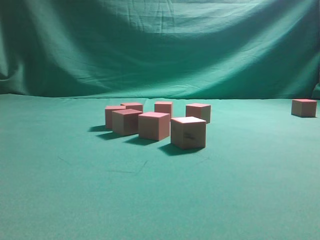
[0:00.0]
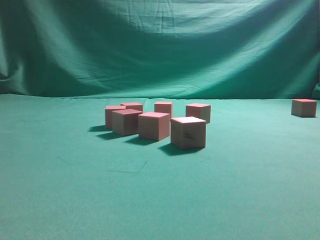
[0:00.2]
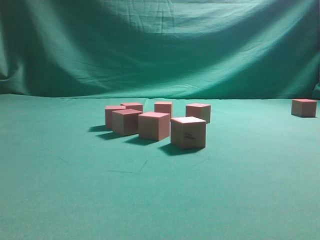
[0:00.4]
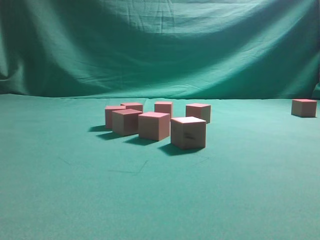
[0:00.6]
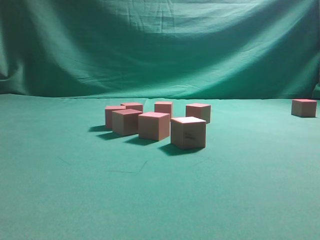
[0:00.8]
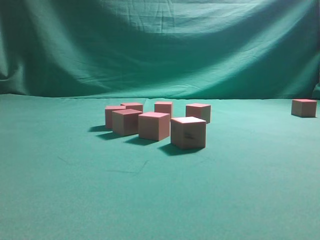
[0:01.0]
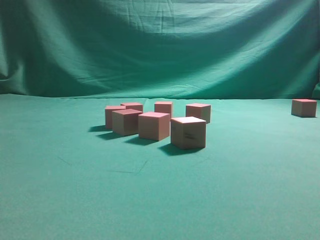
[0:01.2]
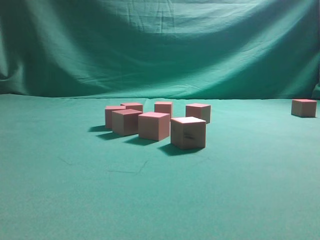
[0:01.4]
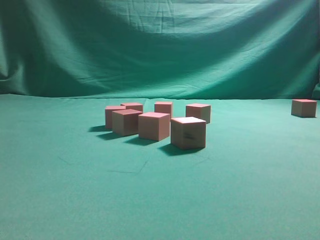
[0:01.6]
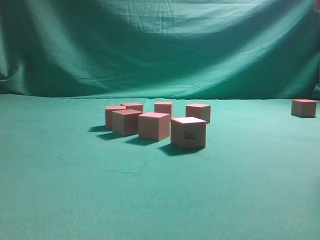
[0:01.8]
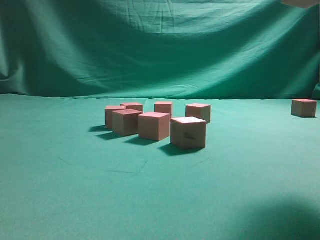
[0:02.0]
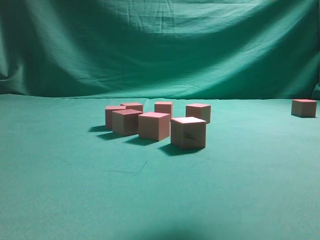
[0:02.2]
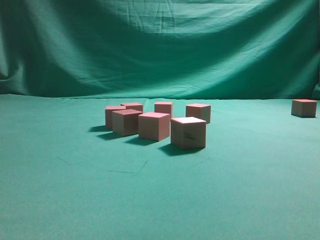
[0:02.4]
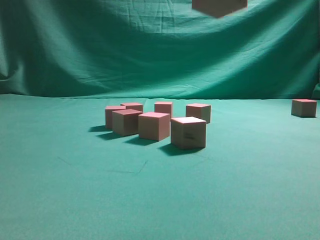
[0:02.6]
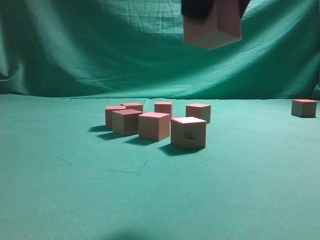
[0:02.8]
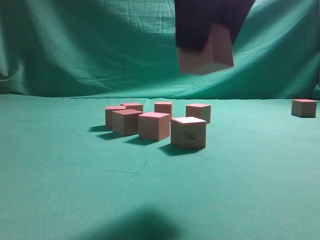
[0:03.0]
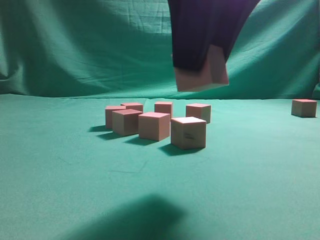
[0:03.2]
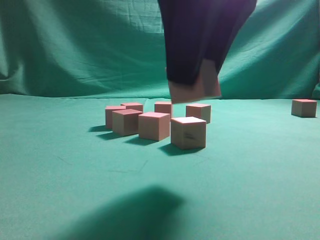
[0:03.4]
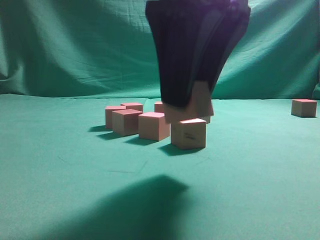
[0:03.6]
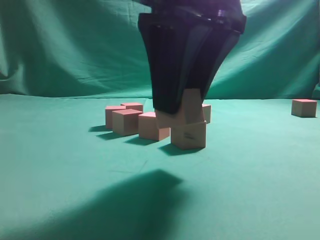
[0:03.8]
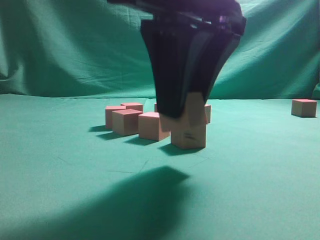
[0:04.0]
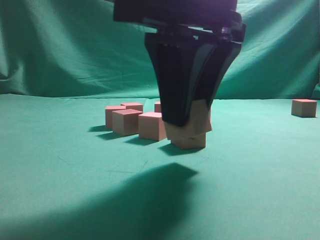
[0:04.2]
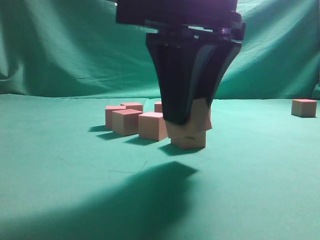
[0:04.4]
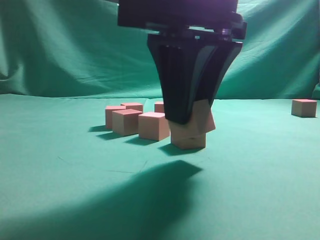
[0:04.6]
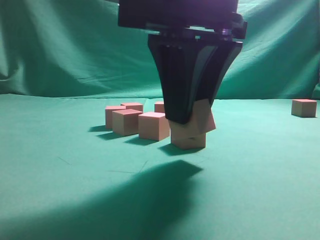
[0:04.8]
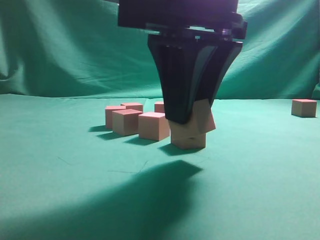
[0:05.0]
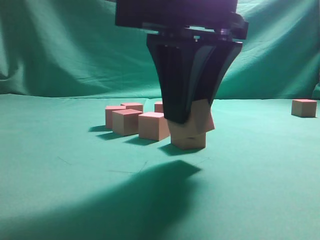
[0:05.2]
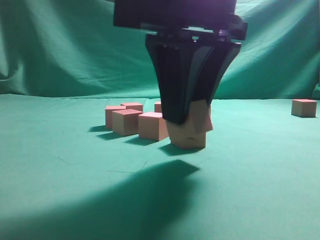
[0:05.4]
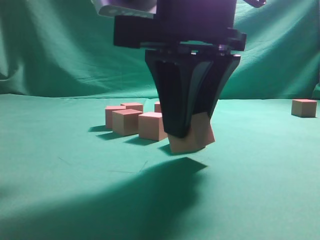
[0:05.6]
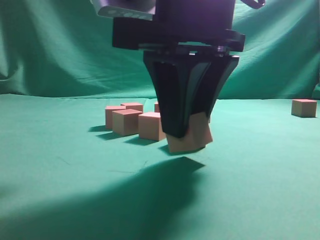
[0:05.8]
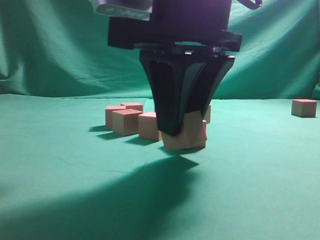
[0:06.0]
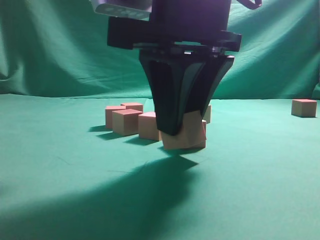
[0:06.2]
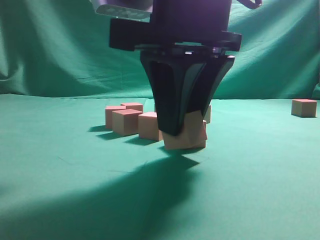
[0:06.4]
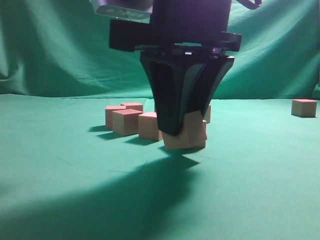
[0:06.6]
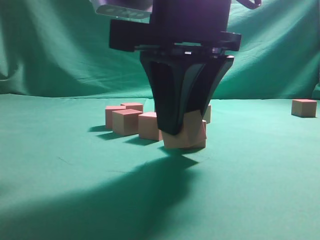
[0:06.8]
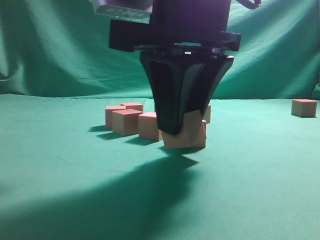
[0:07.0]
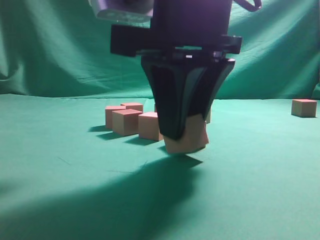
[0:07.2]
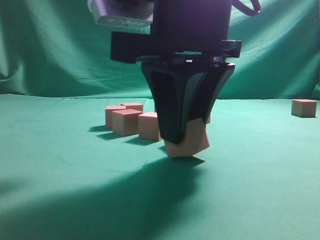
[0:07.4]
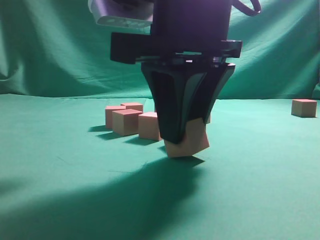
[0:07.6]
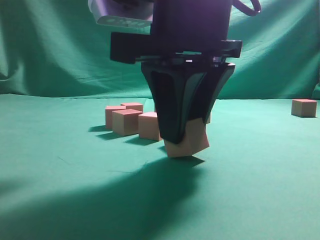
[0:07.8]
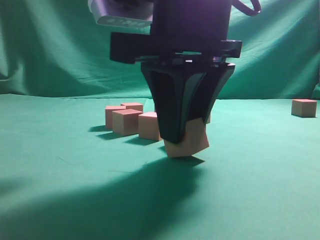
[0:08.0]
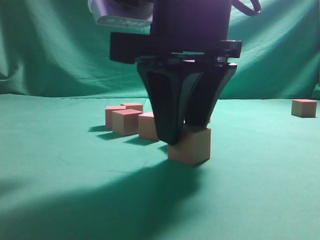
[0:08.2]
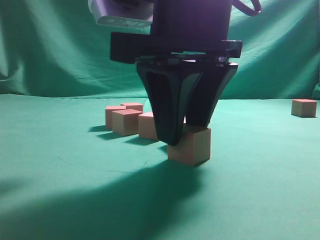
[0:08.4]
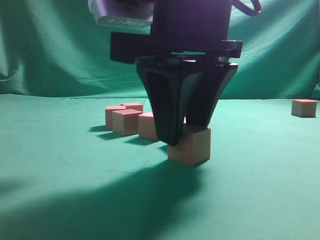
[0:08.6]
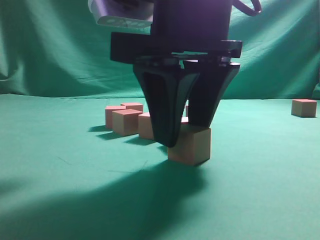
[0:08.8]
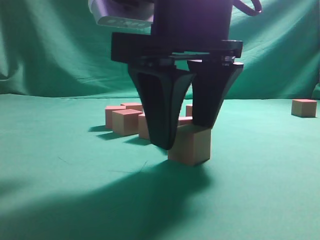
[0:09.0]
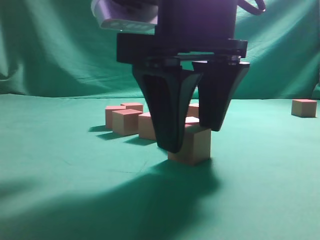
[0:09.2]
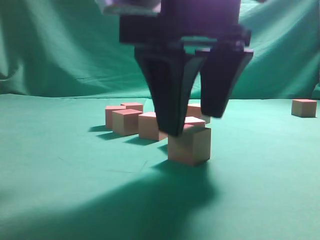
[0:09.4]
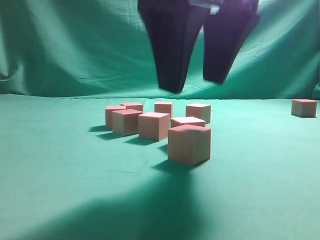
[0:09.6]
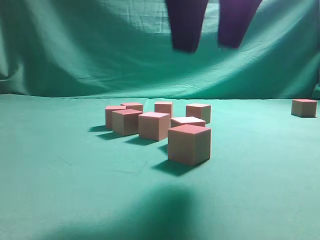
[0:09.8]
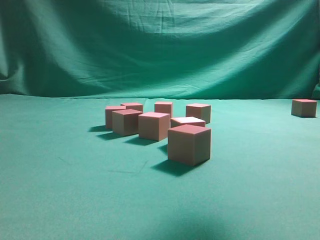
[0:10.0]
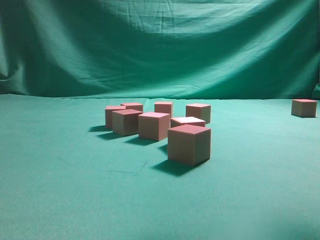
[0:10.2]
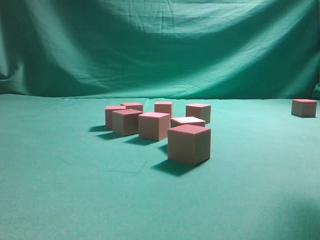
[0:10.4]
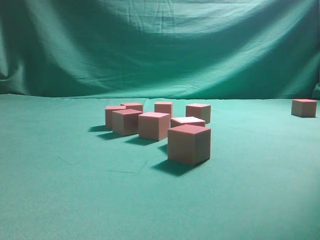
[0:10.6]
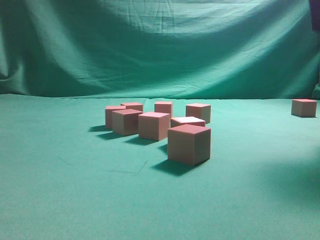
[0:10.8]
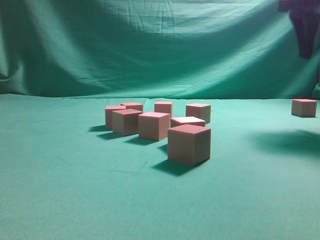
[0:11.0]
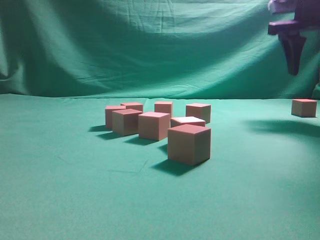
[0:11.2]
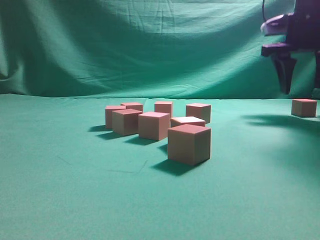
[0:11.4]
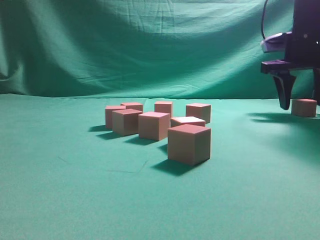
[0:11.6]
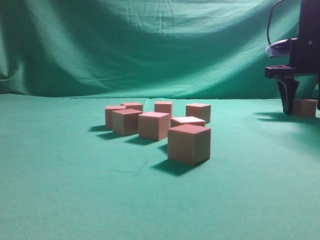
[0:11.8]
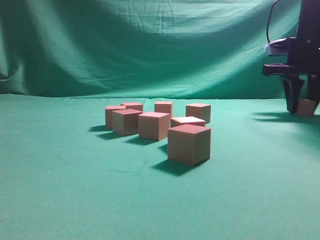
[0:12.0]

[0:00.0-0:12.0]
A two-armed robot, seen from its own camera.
Task of the whole recording: pick up the multiple cubes in two columns one by one and place them in another position on the table.
Step, 0:01.6 to 0:09.4: Place the block at the correct position to assemble the letter S.
0:01.6 to 0:03.0: The right gripper is displaced to the left and backward by roughly 25 cm.
0:03.0 to 0:04.4: The right gripper is displaced downward by approximately 5 cm.
0:04.4 to 0:06.0: Neither gripper changes place.
0:06.0 to 0:07.6: Both grippers stay about where they are.
0:07.6 to 0:09.0: The right gripper opens its fingers.
0:09.0 to 0:10.4: The right gripper shifts roughly 20 cm upward and to the right.
0:10.4 to 0:12.0: The right gripper goes about 30 cm forward, downward and to the right.

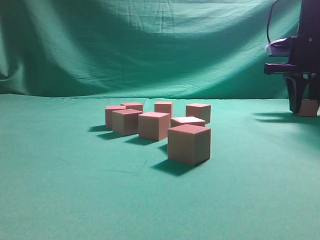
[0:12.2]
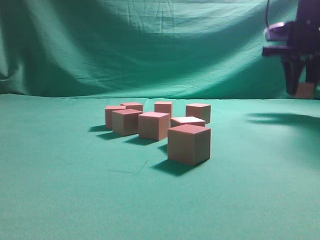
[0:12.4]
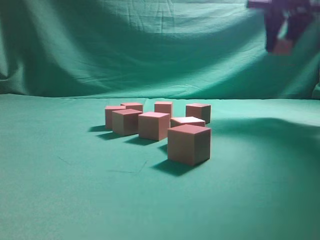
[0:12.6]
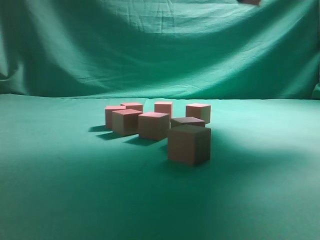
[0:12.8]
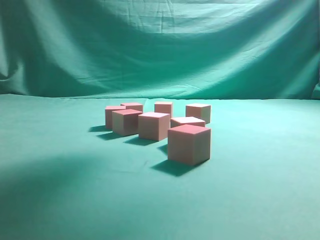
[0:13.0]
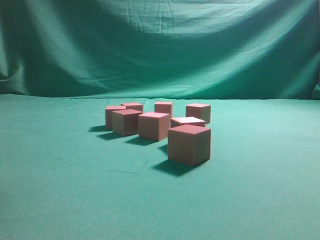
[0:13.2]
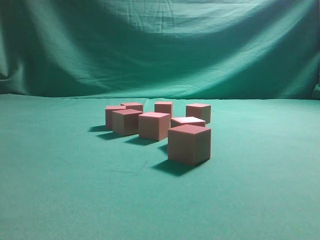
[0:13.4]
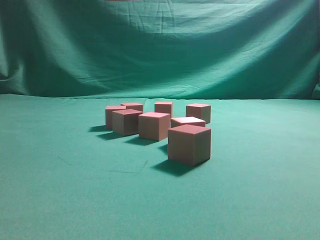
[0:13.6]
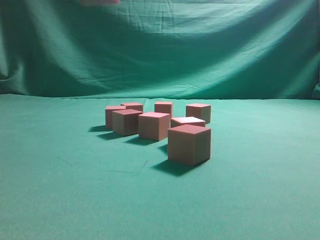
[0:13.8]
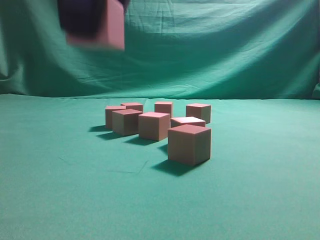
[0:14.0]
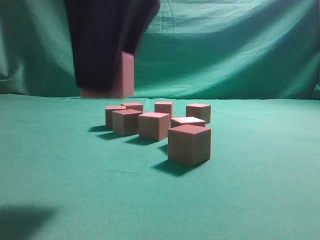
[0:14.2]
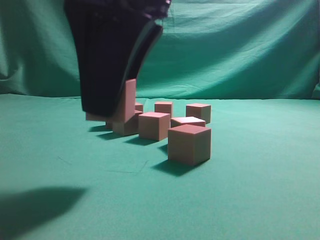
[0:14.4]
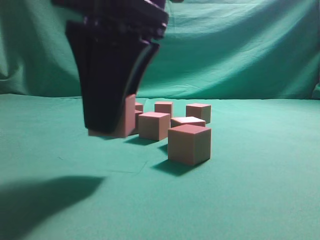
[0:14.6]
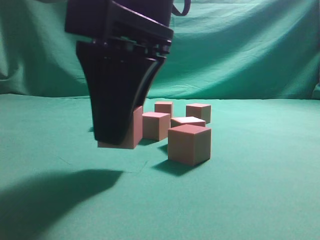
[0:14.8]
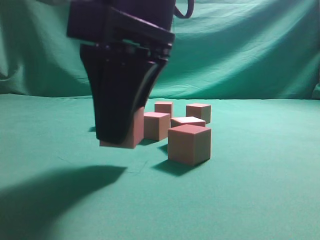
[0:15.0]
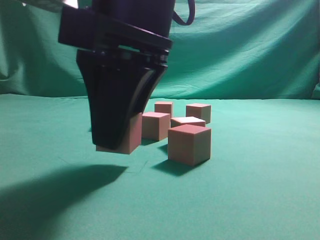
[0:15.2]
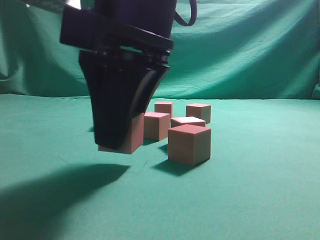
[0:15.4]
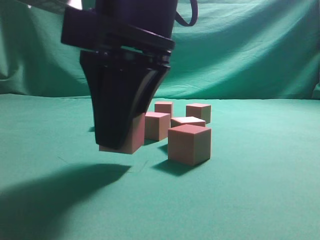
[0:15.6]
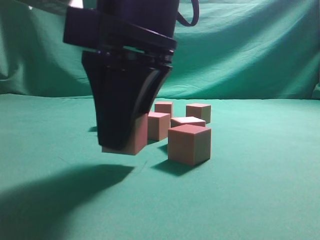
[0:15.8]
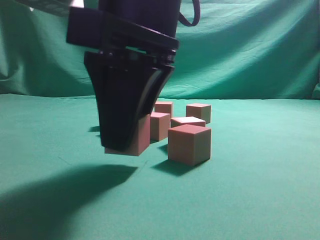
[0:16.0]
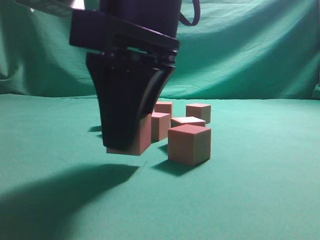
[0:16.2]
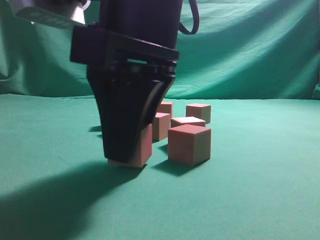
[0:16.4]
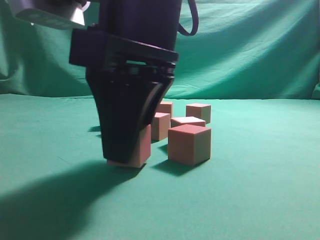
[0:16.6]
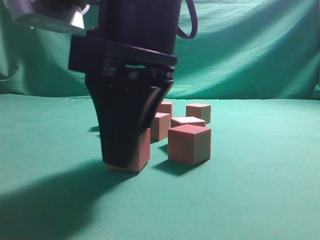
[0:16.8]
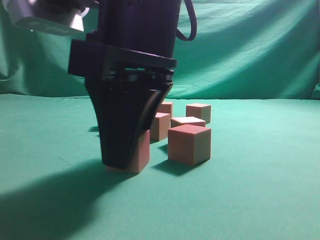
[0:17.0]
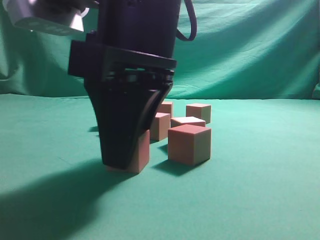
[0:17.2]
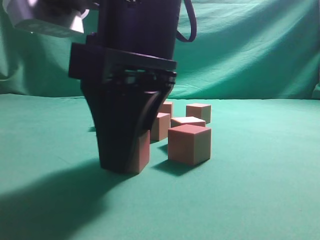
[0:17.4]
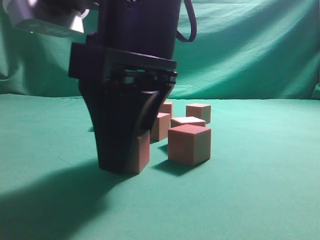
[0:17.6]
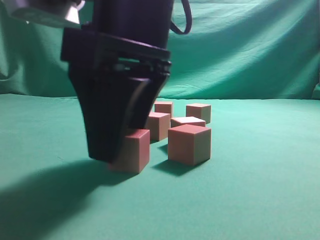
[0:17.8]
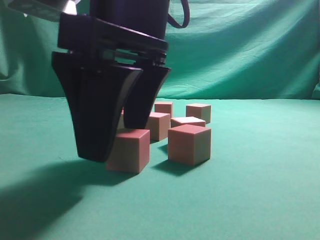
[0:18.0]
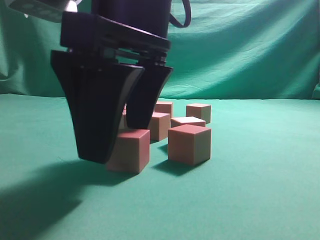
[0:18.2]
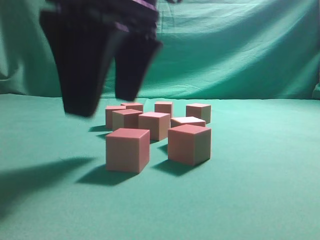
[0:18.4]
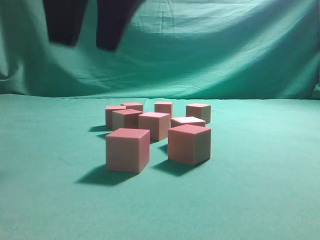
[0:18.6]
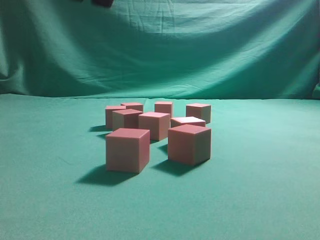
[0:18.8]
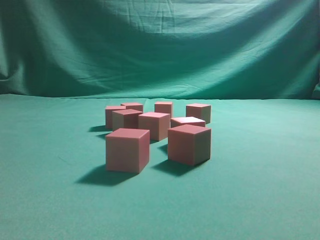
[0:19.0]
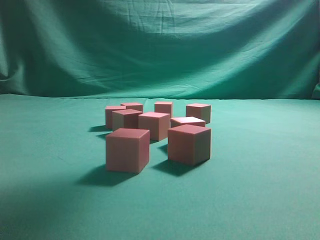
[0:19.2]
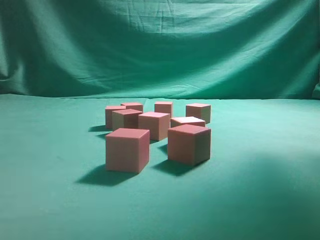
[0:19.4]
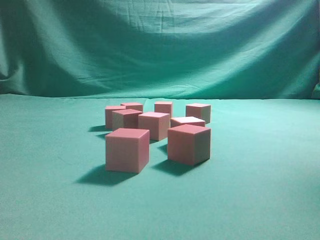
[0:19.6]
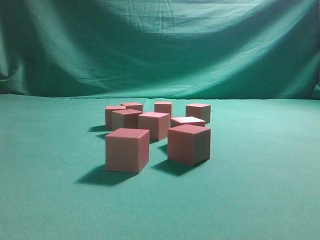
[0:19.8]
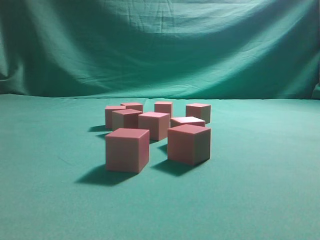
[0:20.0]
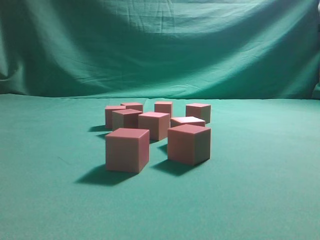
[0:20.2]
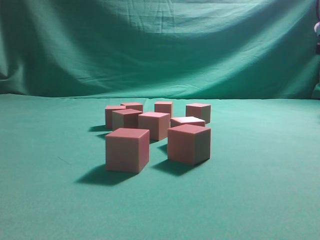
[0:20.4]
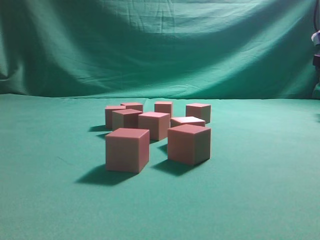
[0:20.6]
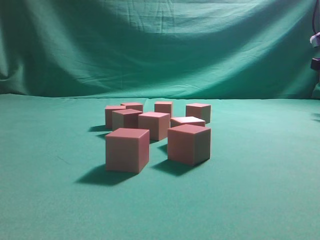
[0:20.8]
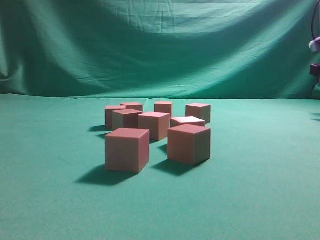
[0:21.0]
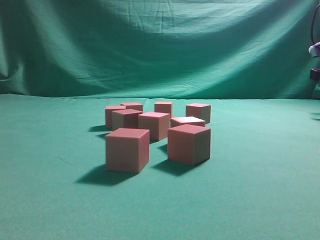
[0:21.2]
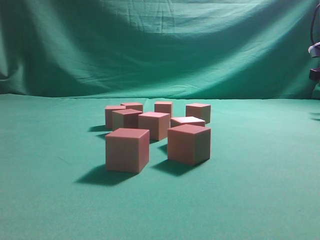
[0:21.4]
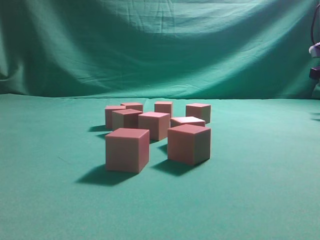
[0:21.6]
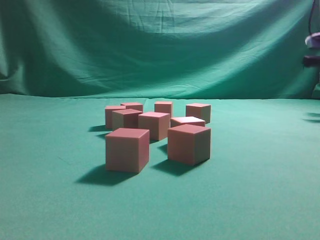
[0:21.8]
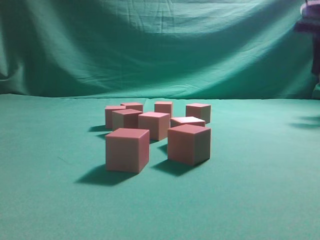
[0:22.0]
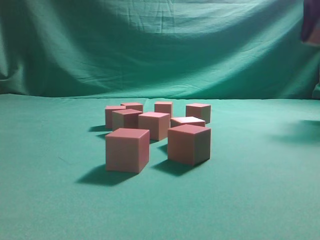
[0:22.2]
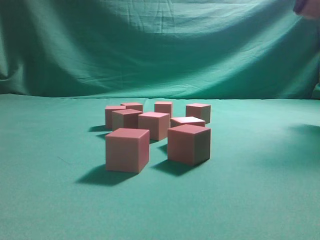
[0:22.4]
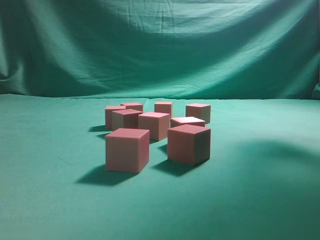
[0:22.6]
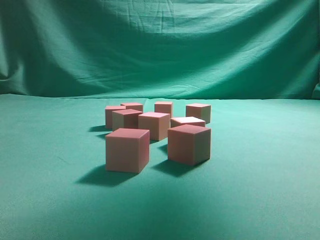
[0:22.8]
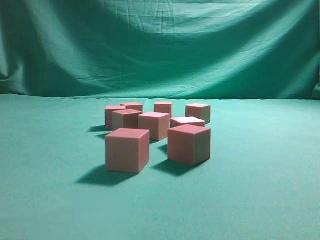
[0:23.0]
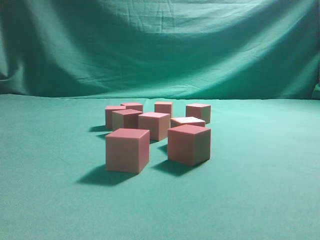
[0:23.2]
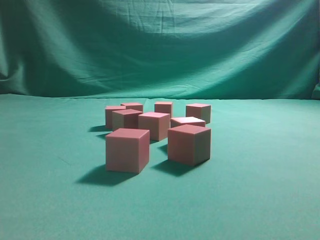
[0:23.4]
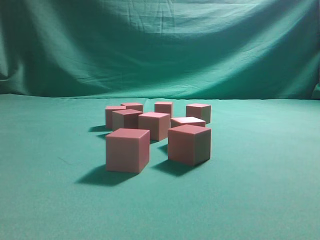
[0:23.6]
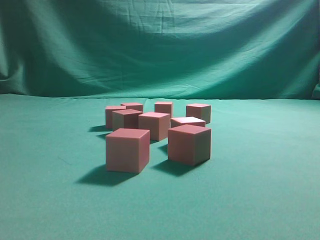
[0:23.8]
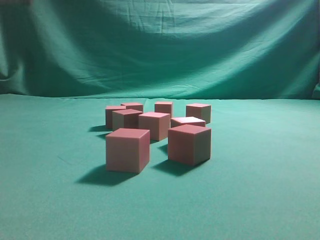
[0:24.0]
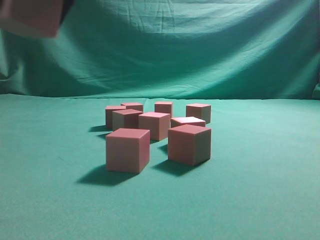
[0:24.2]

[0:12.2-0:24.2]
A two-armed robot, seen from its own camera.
Task of the whole recording: pick up the multiple cubes in two columns one by one and place them in another position on the table.
Step, 0:12.4 to 0:18.2: Place the block at the correct position to assemble the letter S.
Step, 0:18.4 to 0:21.8: Pick up the block on the table.
0:12.2 to 0:13.8: The right gripper goes roughly 40 cm to the left, backward and upward.
0:13.8 to 0:15.2: The right gripper heads downward, covering about 10 cm.
0:15.2 to 0:16.6: The two grippers keep their place.
0:16.6 to 0:18.2: The right gripper opens up.
0:18.2 to 0:19.8: The right gripper heads to the right, forward and upward, covering approximately 40 cm, and closes.
0:21.2 to 0:22.6: The right gripper shifts roughly 25 cm upward and to the left, and closes up.
0:22.6 to 0:24.2: The right gripper goes roughly 35 cm to the left and backward.
